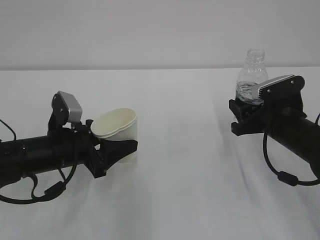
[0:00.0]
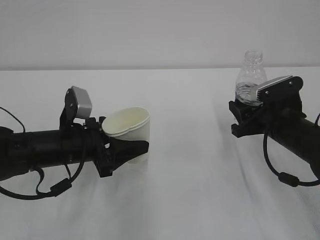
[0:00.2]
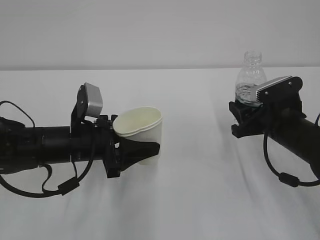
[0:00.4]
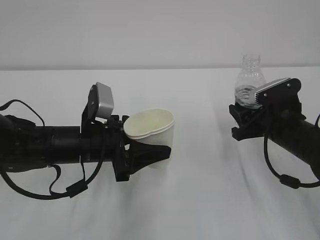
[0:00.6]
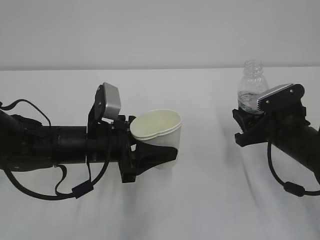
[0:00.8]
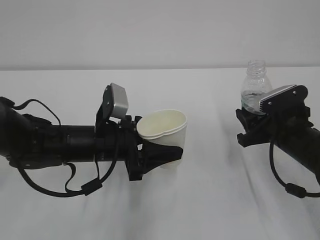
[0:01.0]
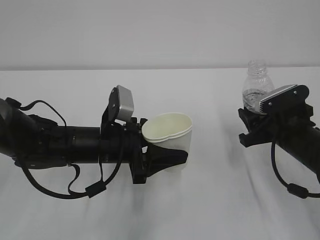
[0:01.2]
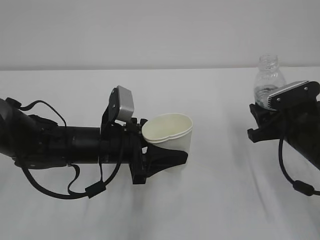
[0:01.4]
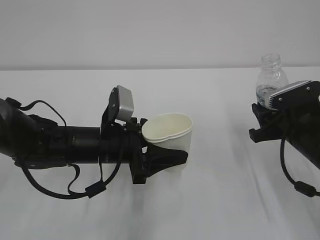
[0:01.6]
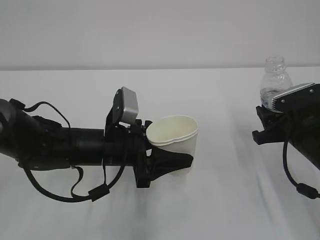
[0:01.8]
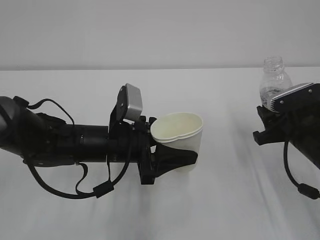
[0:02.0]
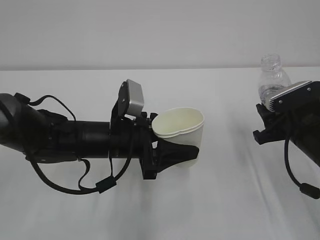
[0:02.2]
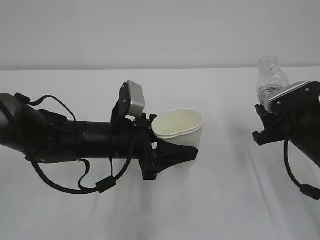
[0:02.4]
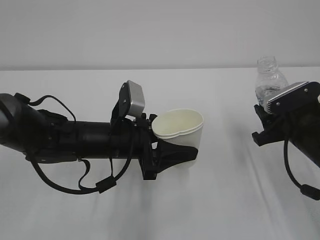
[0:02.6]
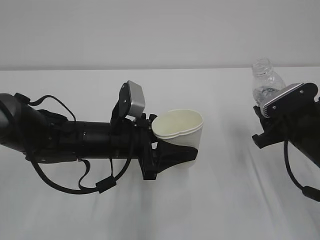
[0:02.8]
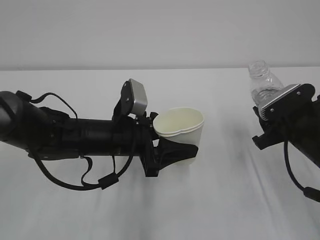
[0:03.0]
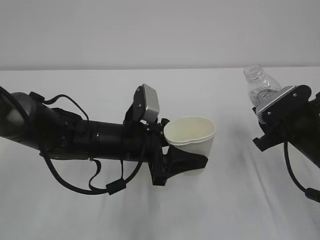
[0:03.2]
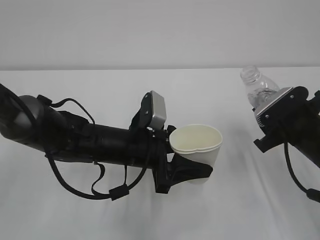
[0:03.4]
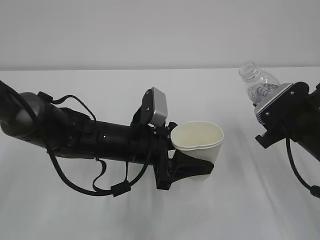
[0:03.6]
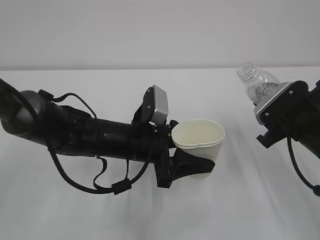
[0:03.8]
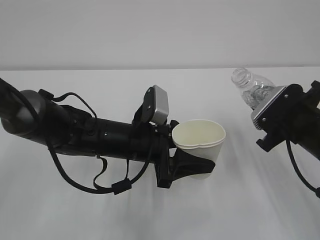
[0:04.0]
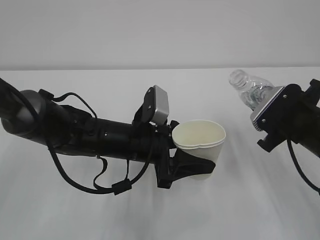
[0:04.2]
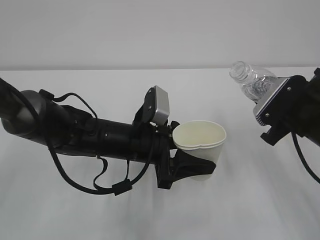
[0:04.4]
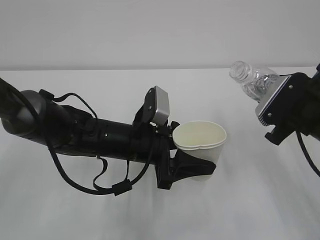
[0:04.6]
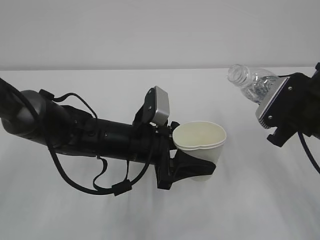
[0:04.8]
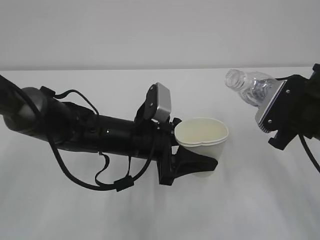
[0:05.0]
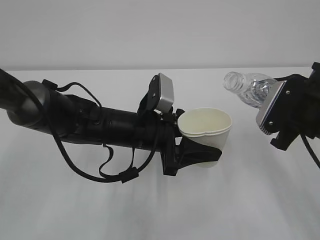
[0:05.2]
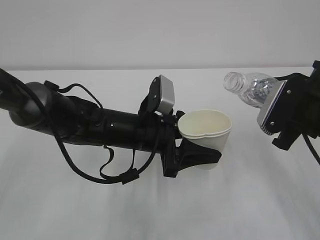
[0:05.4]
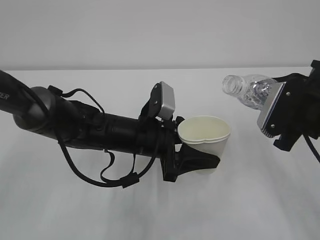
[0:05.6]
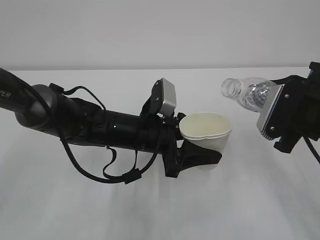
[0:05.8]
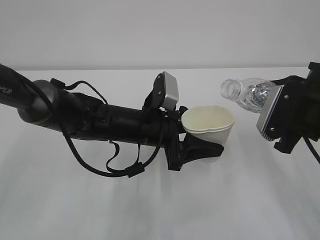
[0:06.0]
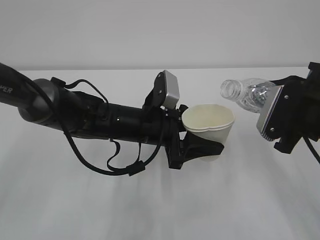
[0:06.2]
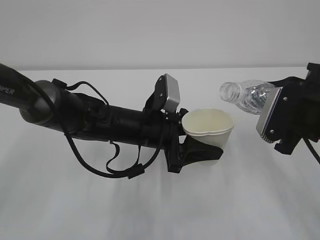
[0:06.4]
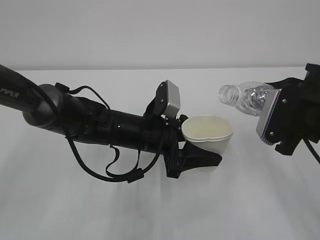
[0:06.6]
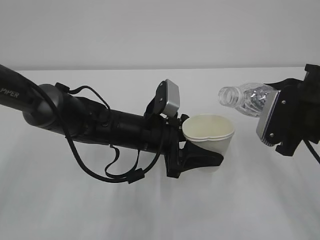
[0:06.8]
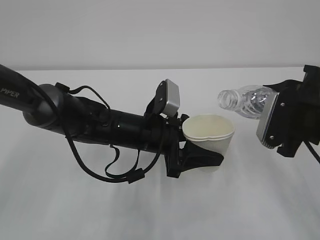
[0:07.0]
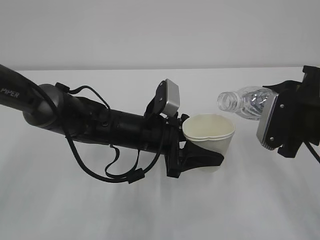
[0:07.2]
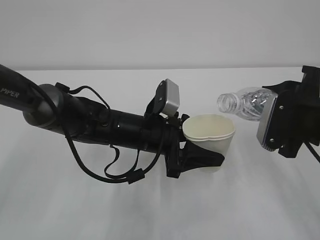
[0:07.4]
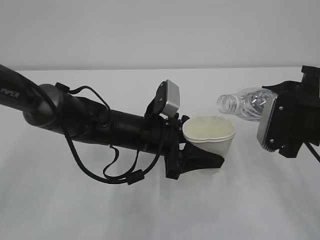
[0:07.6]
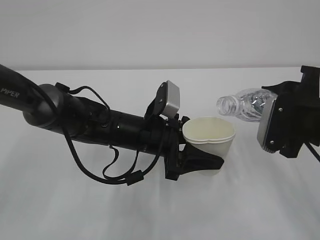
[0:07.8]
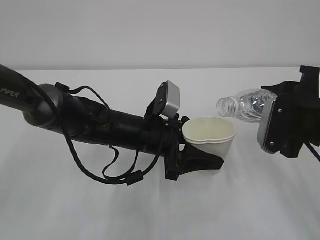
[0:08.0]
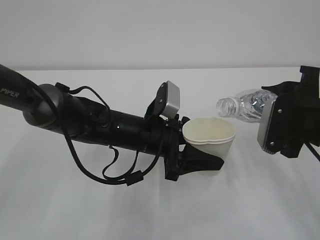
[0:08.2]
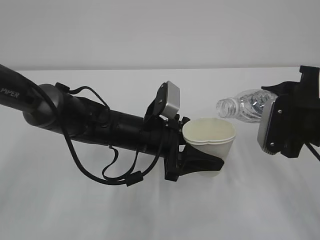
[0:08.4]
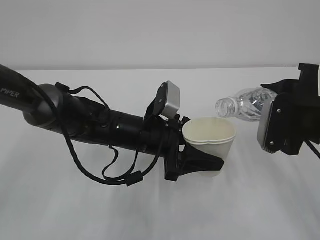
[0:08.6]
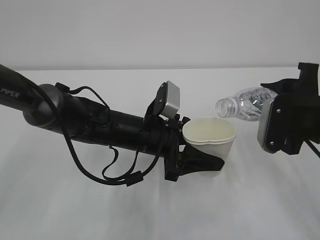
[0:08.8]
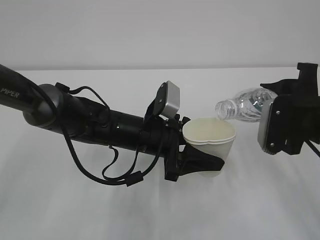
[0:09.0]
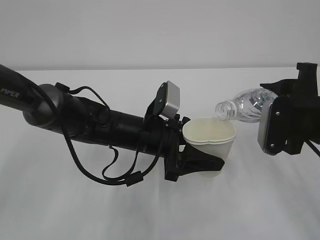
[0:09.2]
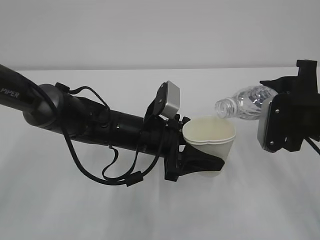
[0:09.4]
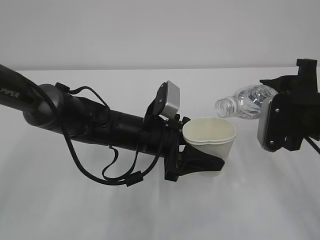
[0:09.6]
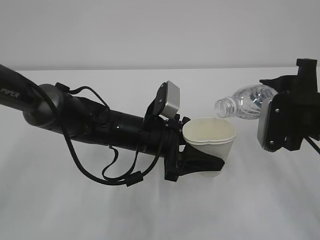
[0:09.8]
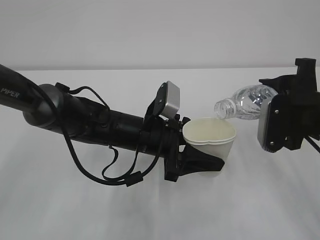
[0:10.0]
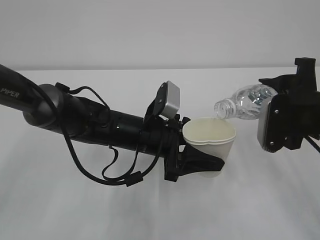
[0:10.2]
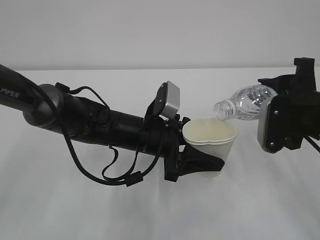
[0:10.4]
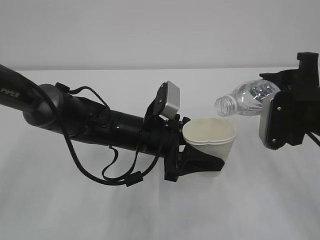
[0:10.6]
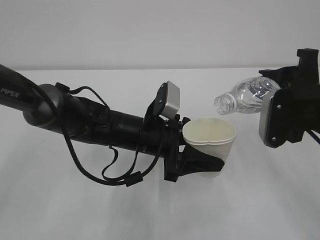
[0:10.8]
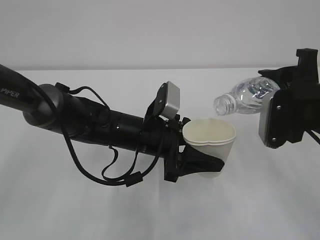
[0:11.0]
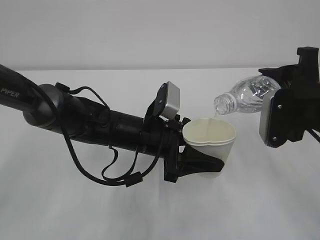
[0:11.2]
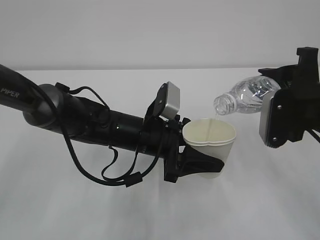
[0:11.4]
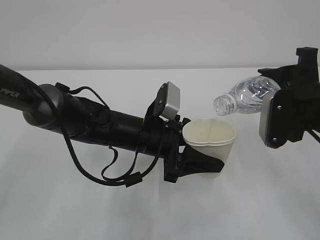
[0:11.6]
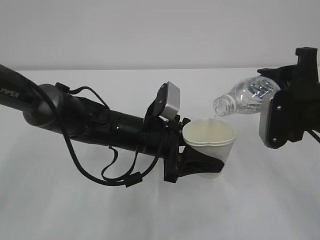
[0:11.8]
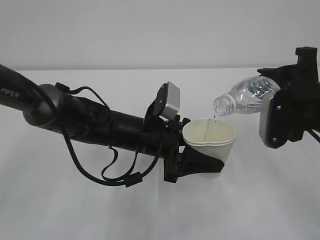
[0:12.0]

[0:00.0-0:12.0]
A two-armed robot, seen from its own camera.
0:00.0 to 0:01.6: The left gripper goes approximately 10 cm to the right.
0:01.6 to 0:03.0: There are only small adjustments of the grippers.
0:04.4 to 0:06.0: The grippers move only a little.
0:06.0 to 0:09.0: The grippers move only a little.
0:09.0 to 0:10.4: Both grippers stay put.
0:10.4 to 0:12.0: The grippers move only a little.

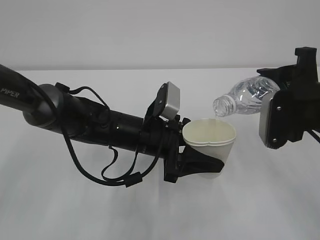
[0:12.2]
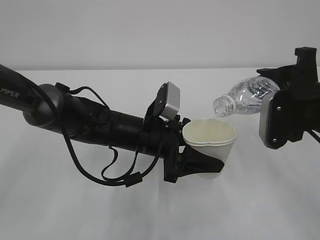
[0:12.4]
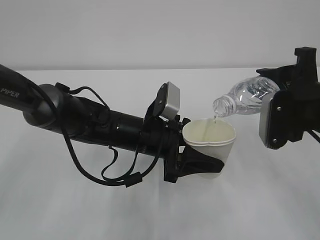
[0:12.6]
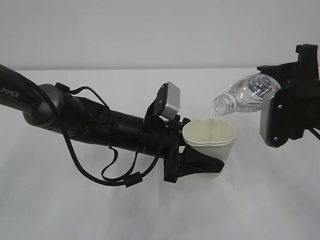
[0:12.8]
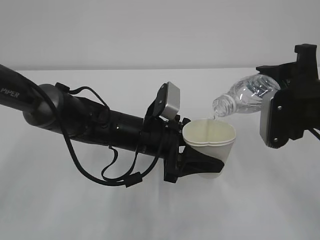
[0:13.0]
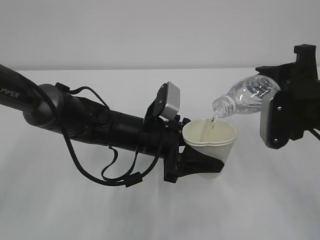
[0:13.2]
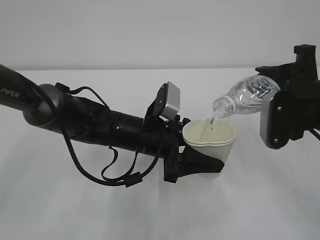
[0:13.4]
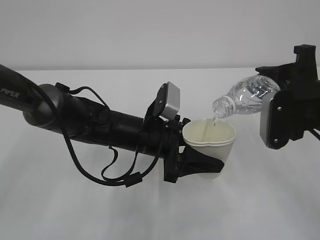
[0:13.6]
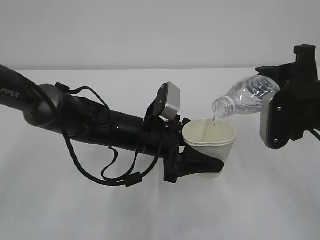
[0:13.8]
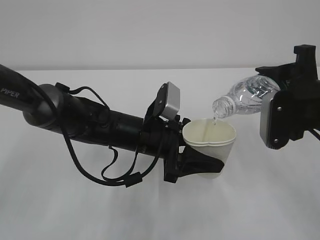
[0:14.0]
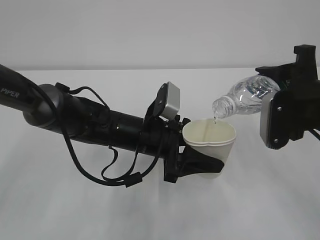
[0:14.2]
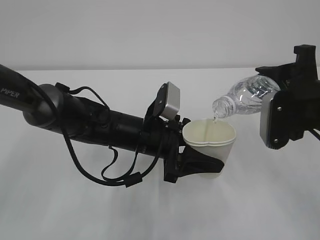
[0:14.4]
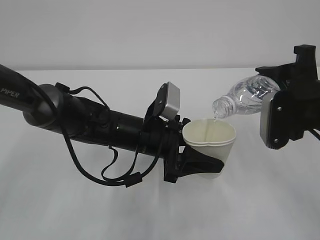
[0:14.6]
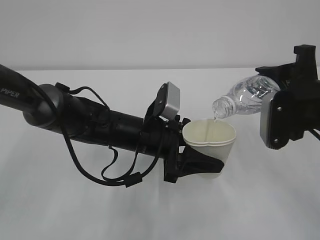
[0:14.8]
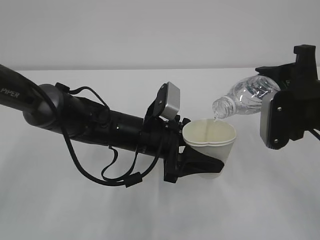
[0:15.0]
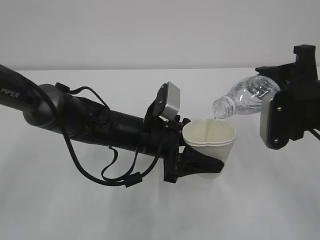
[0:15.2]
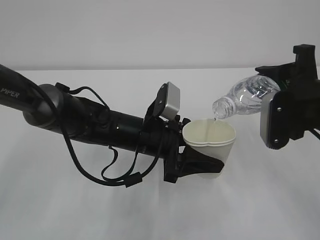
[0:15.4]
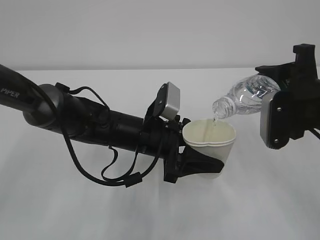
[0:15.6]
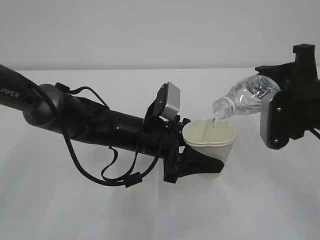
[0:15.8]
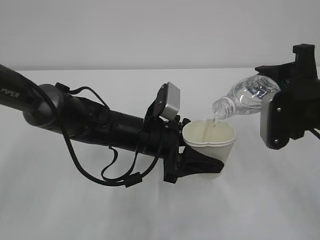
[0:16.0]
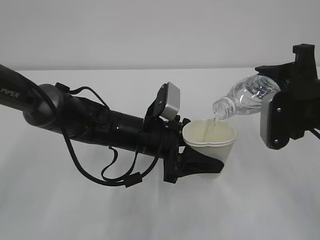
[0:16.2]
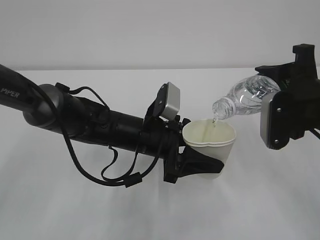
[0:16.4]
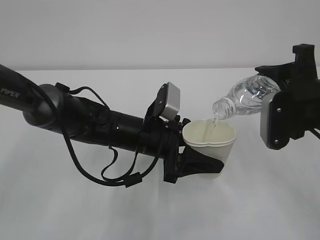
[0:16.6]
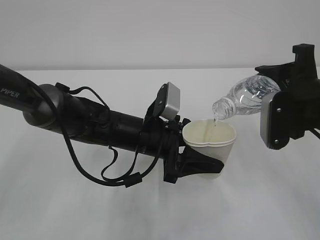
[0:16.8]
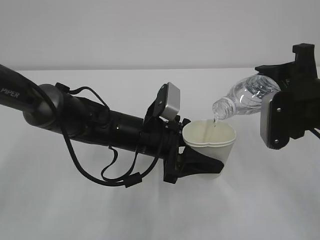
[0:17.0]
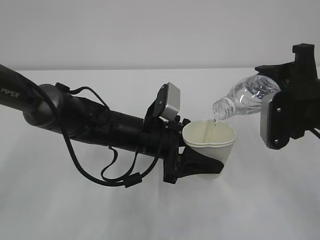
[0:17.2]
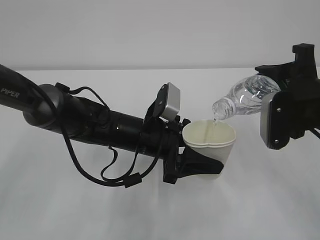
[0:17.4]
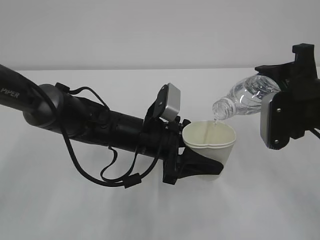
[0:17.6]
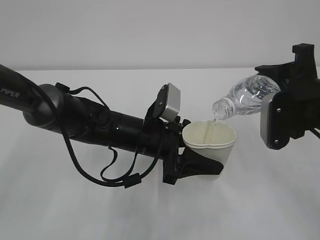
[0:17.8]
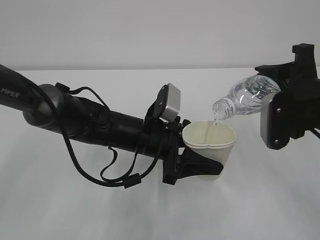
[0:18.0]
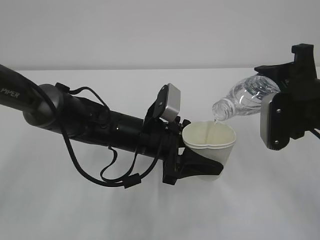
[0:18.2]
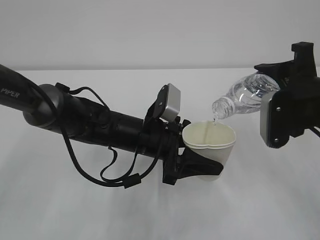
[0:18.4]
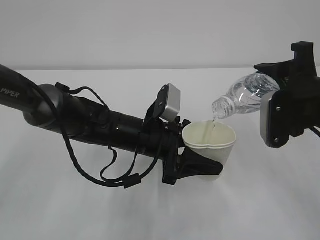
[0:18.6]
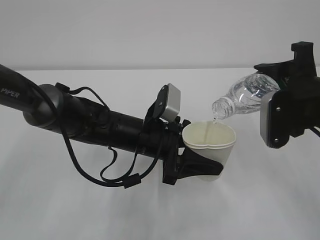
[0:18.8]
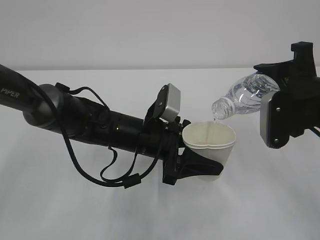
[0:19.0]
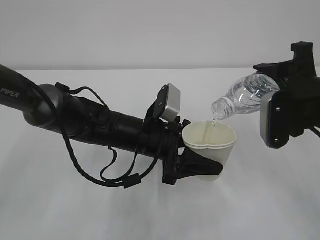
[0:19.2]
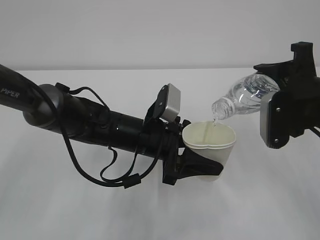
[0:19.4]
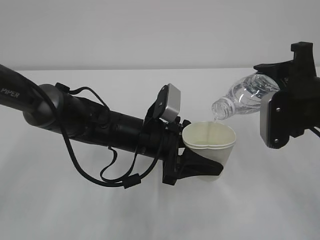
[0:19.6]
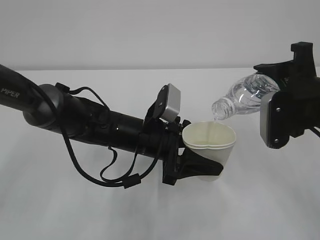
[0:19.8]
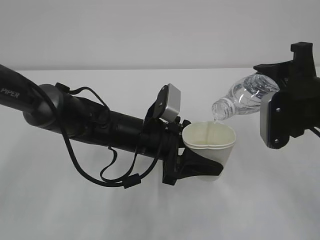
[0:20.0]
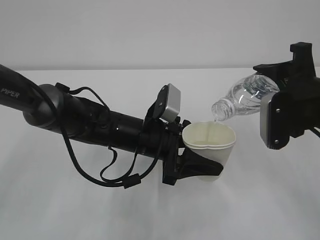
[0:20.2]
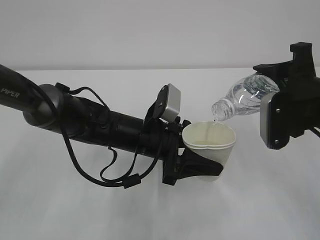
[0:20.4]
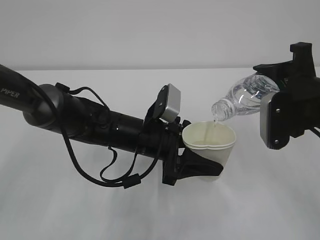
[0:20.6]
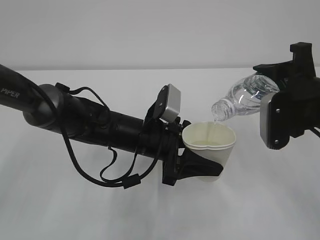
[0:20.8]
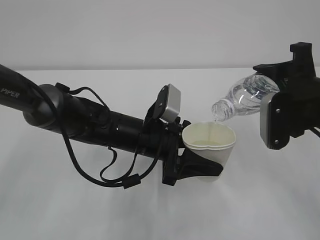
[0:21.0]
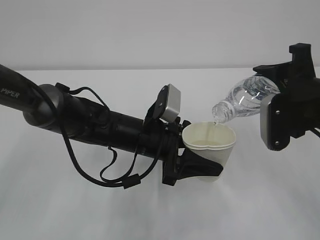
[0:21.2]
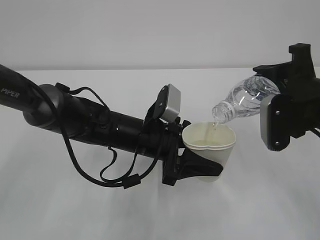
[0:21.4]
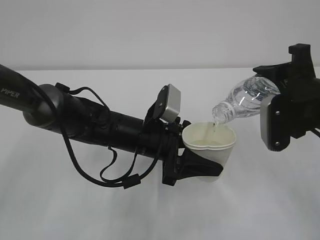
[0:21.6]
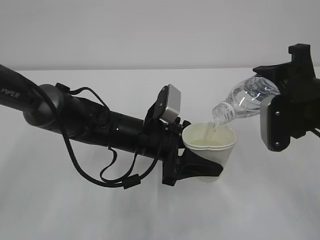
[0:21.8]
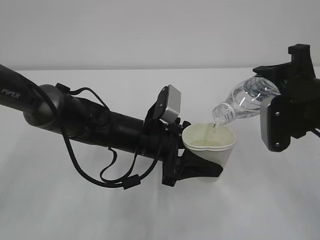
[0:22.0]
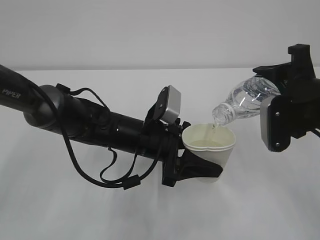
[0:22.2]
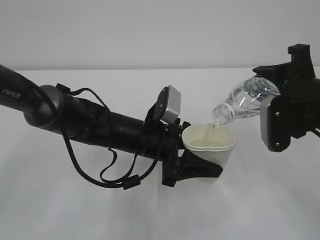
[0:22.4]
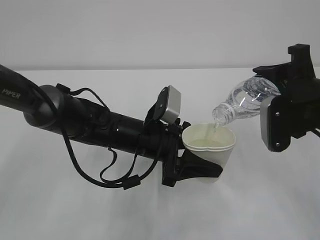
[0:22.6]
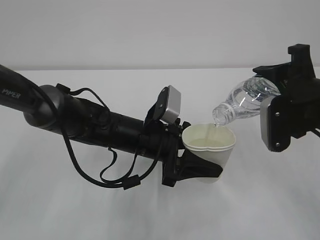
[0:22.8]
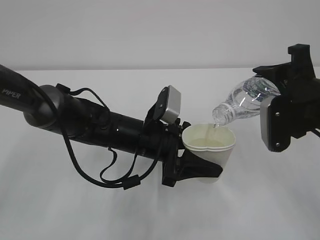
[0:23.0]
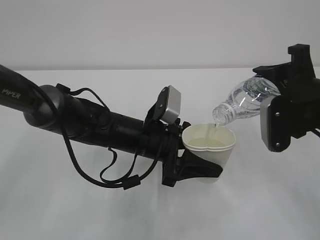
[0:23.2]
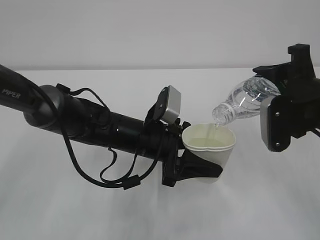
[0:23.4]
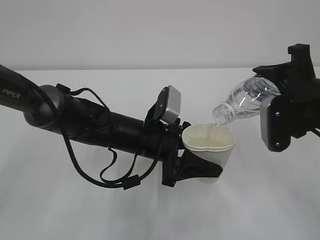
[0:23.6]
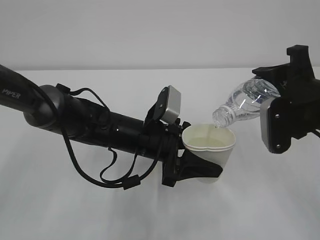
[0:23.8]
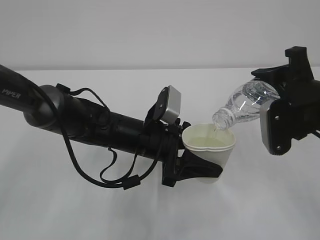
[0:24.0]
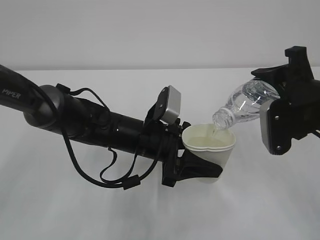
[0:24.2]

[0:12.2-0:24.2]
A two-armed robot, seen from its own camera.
0:12.2 to 0:18.2: The two grippers keep their place.
0:18.2 to 0:22.6: Neither gripper changes place.
0:22.6 to 0:24.2: Both grippers stay put.
